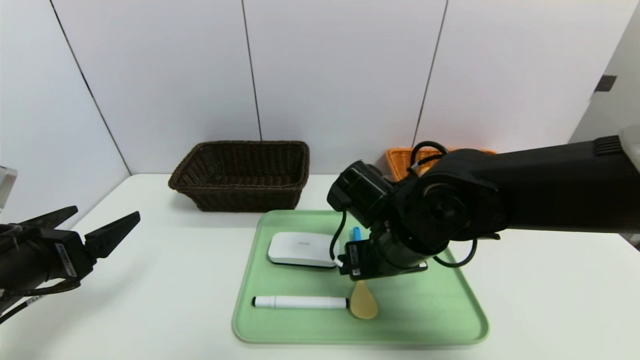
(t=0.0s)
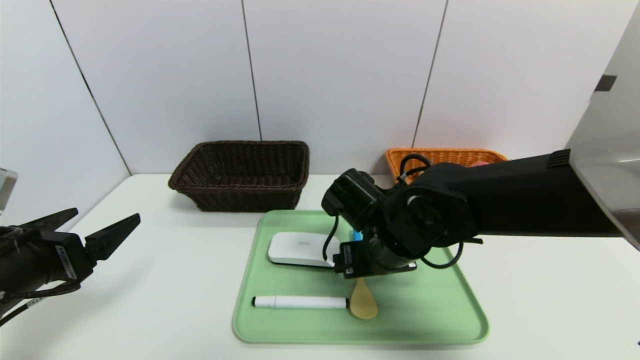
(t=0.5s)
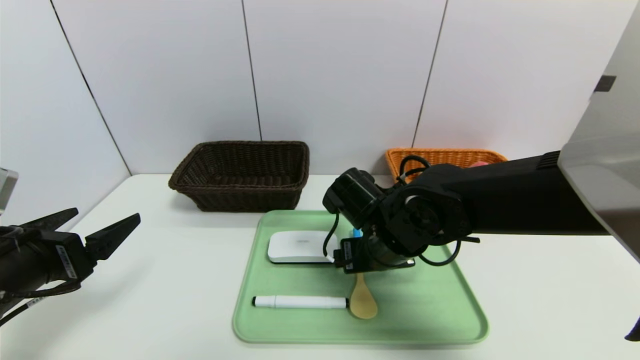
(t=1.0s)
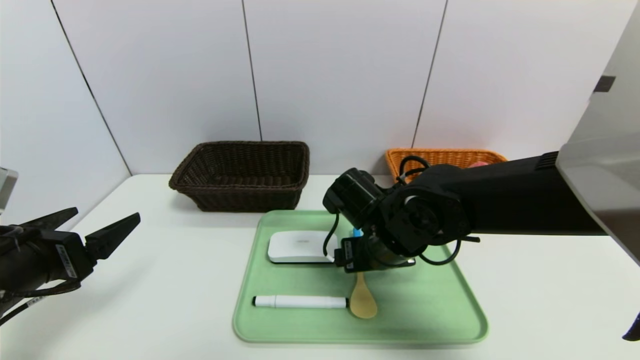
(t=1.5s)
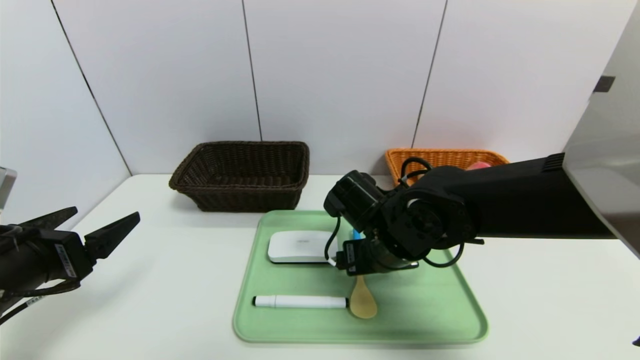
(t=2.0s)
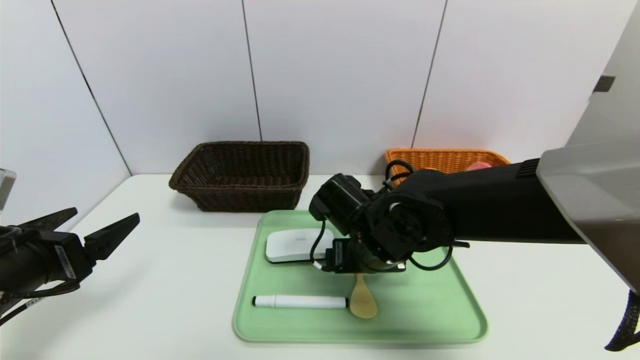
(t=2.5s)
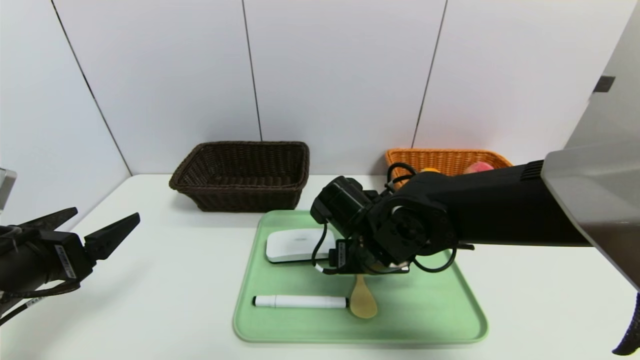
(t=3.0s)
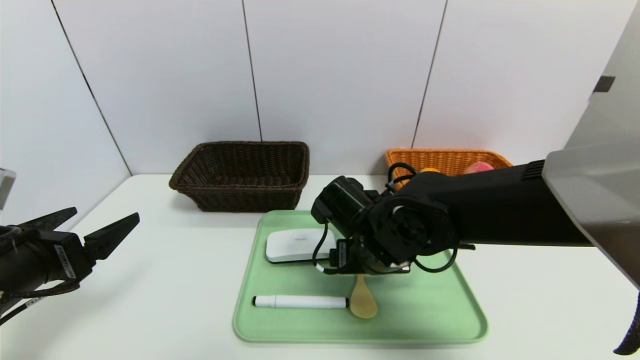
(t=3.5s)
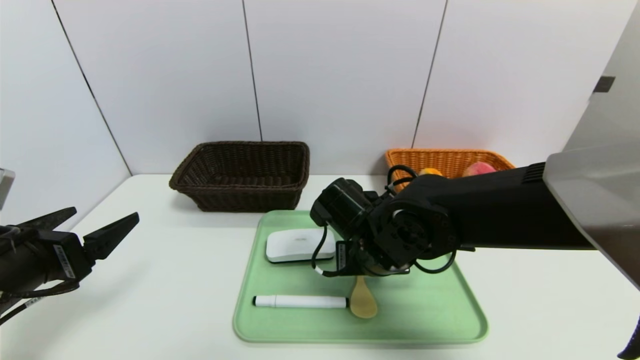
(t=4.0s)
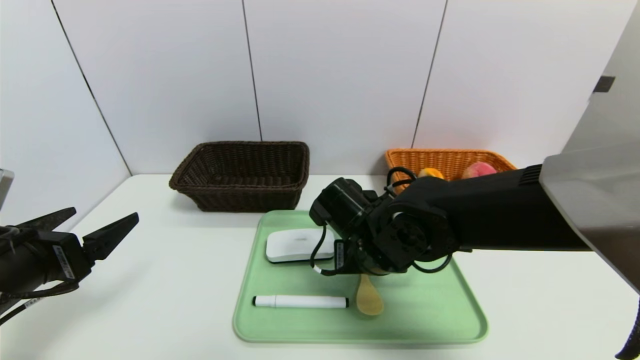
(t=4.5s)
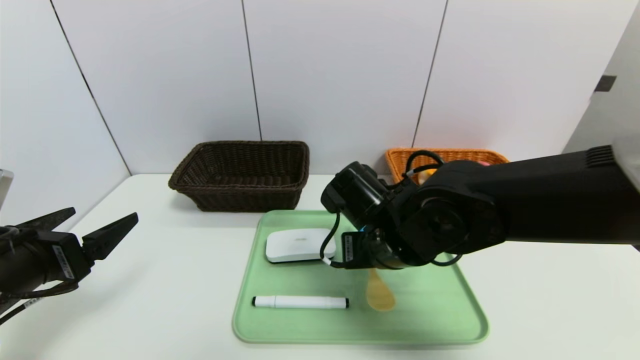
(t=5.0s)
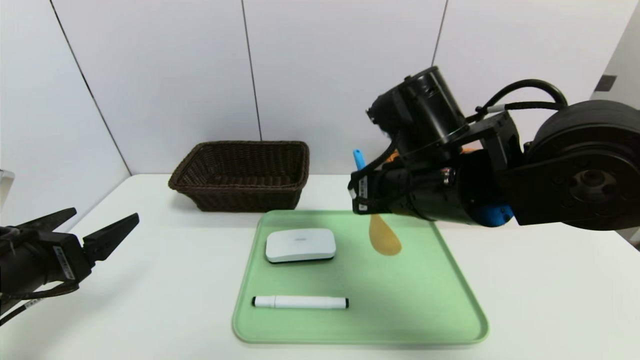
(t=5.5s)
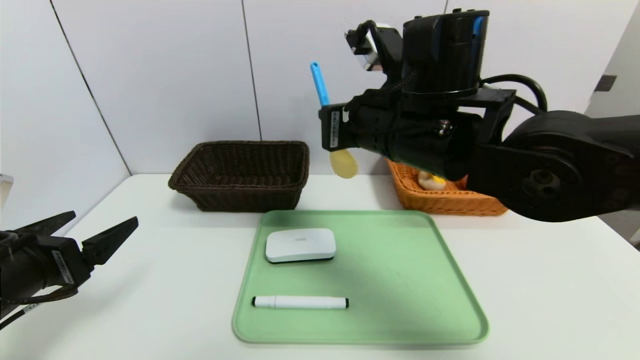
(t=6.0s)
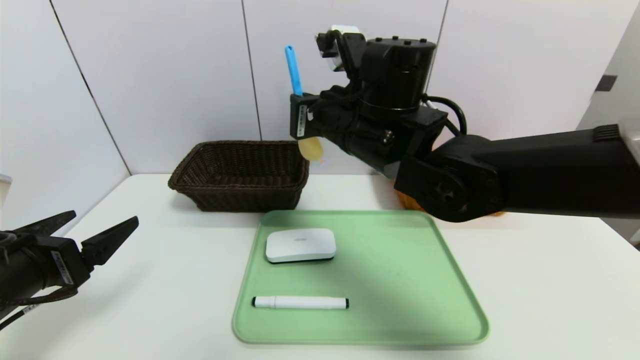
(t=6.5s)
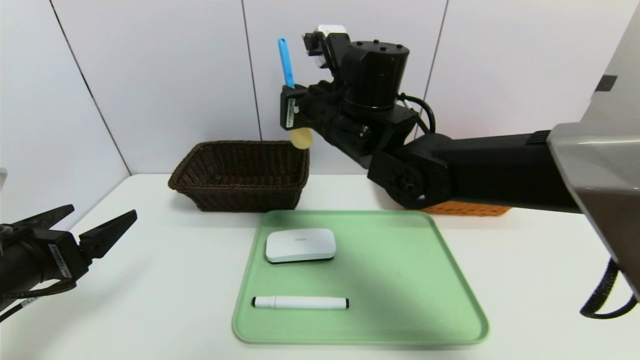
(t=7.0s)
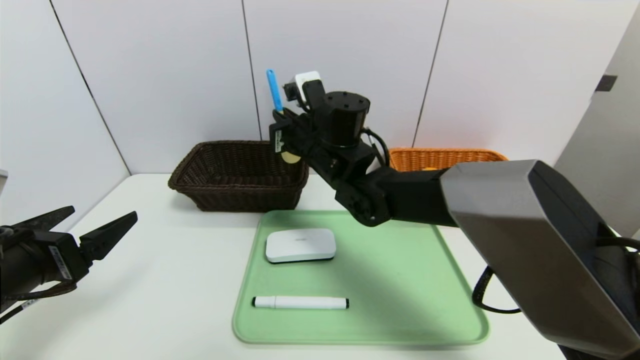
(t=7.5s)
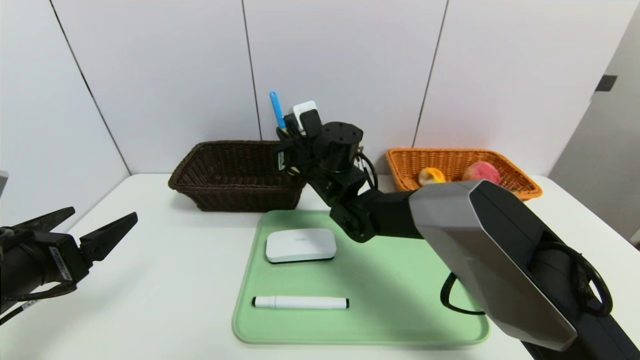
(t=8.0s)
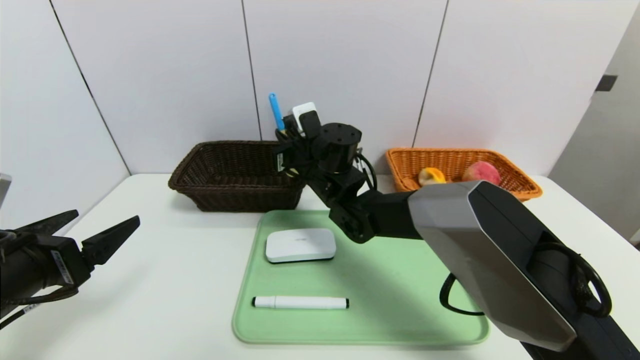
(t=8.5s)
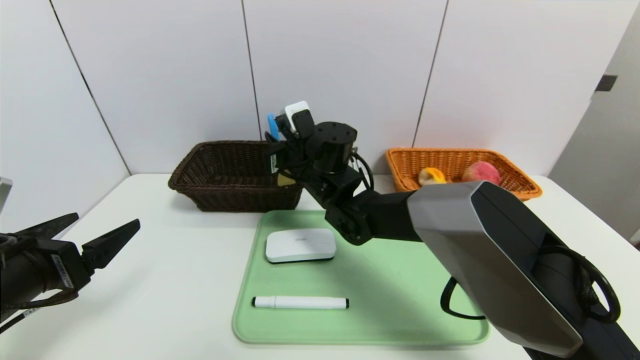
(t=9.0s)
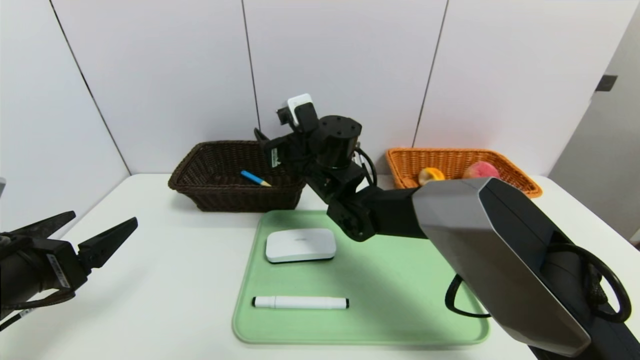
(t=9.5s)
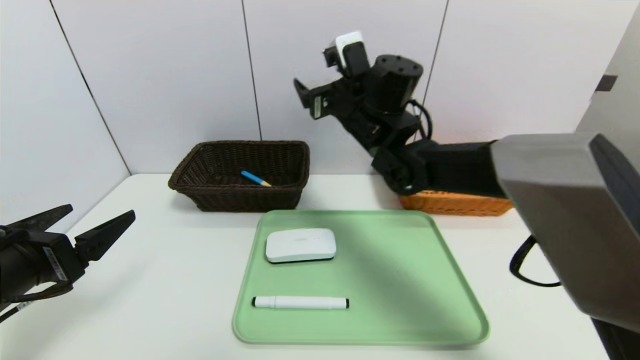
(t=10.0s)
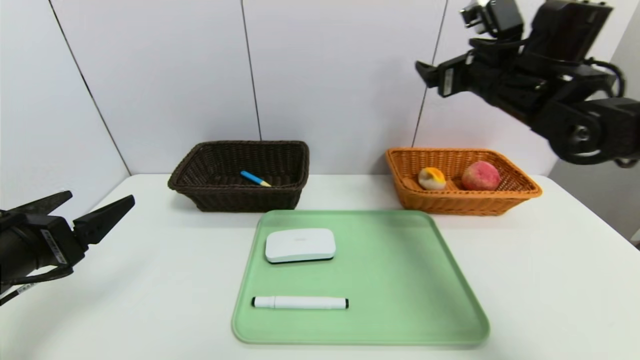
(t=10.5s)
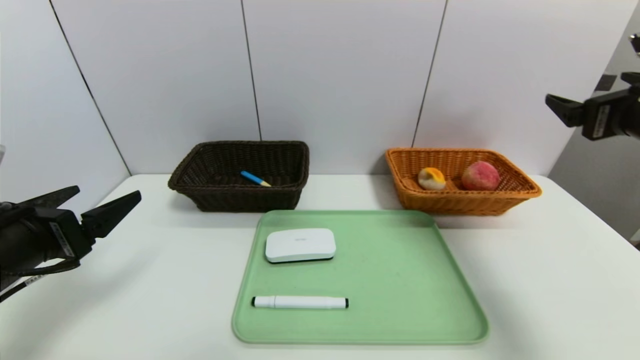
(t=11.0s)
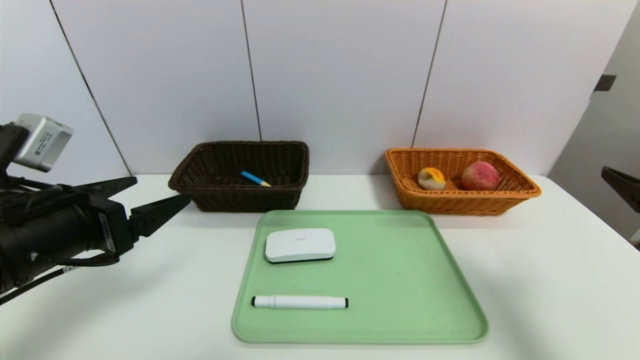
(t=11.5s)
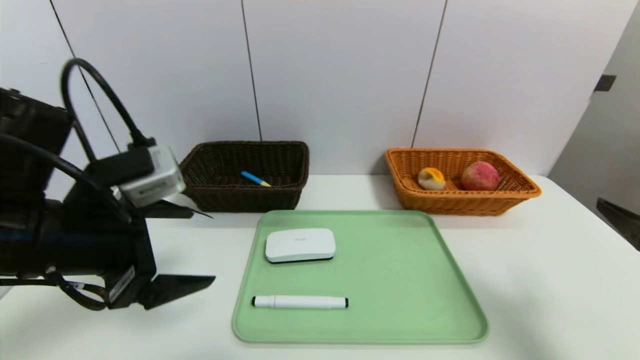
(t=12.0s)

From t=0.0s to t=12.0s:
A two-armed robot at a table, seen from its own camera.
Task of the whole recording: place the food in the right basket with the right gripper, and place the non food items in the left basket with the left gripper.
From t=0.0s to t=2.0s: There are only small adjustments of the grippers.
From t=2.0s to t=4.0s: The right gripper closes up.
From t=4.0s to t=6.0s: The right gripper moves upward, some 15 cm, and closes its fingers.
From t=6.0s to t=8.0s: The right gripper shifts roughly 20 cm forward, downward and to the left.
From t=8.0s to t=10.0s: The right gripper heads upward and to the right, covering some 10 cm, and opens its fingers.
From t=10.0s to t=12.0s: The left gripper heads to the right and upward, covering approximately 10 cm. The right gripper moves backward and to the right, about 40 cm.

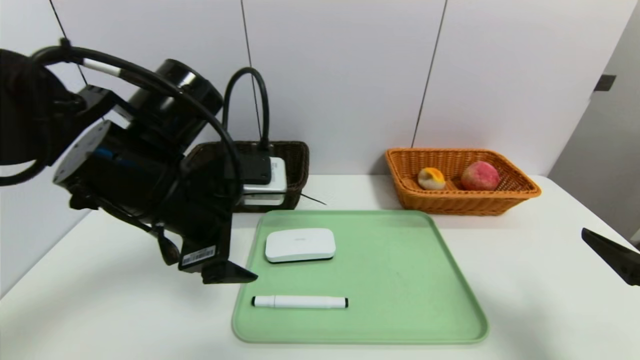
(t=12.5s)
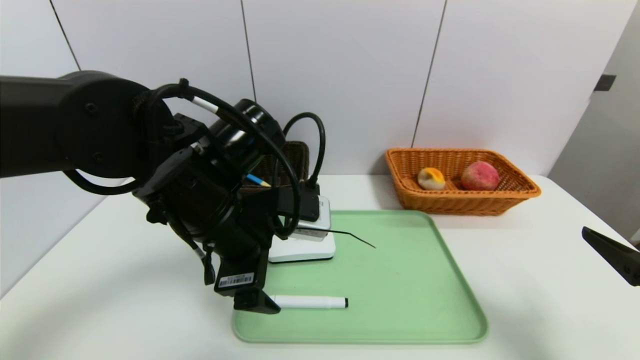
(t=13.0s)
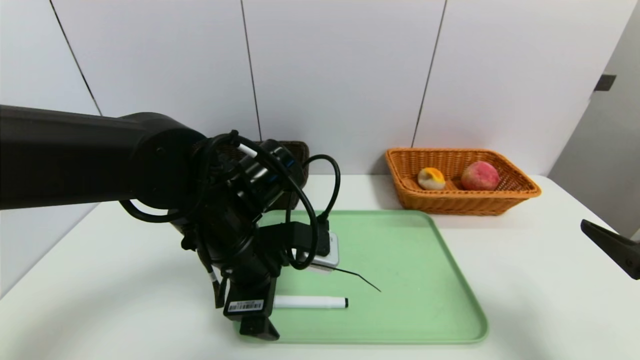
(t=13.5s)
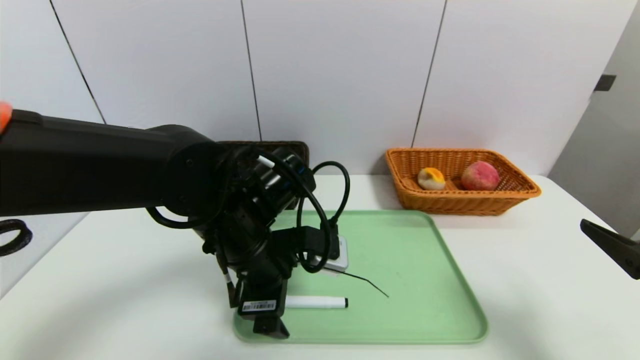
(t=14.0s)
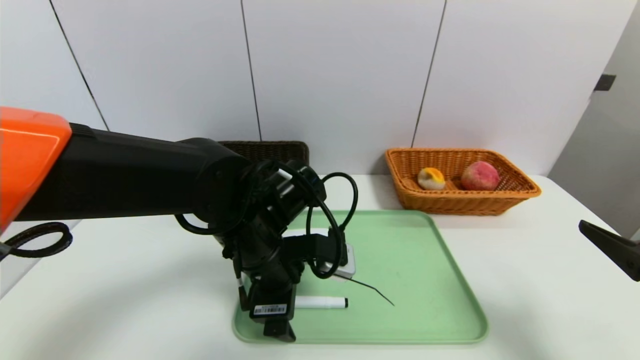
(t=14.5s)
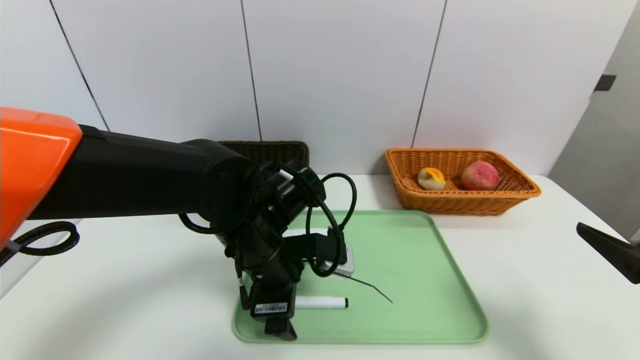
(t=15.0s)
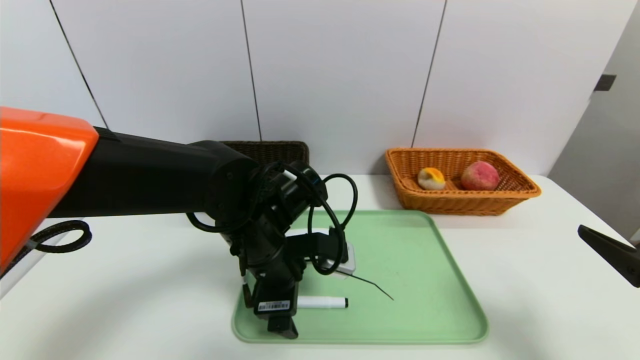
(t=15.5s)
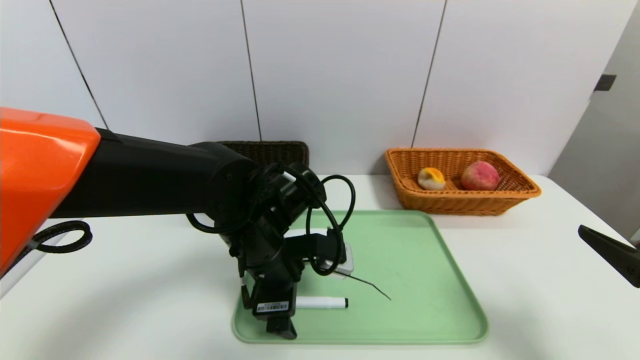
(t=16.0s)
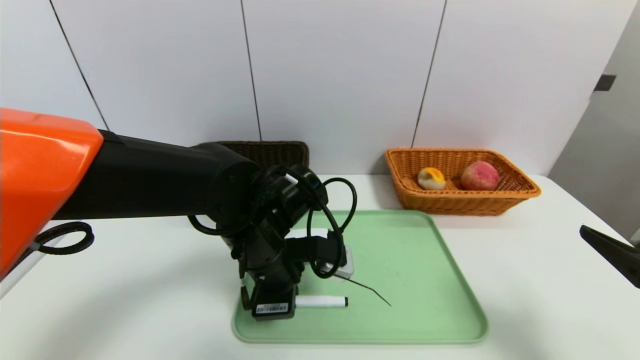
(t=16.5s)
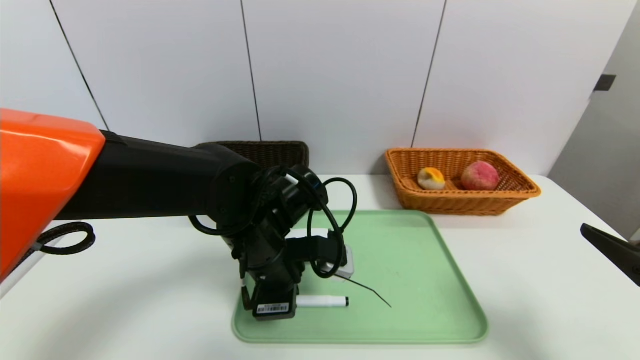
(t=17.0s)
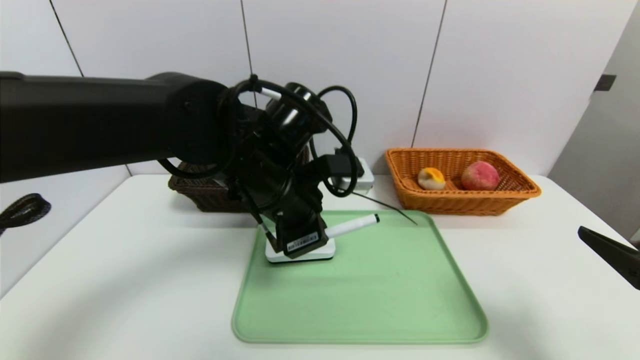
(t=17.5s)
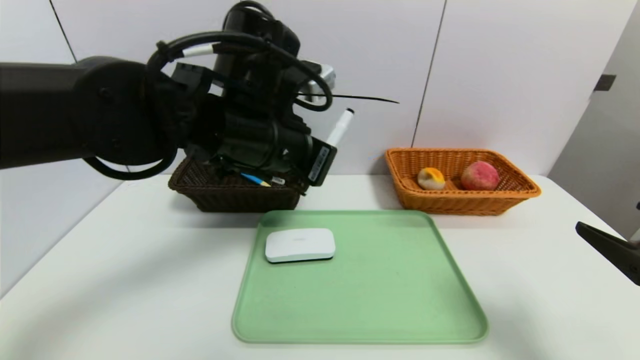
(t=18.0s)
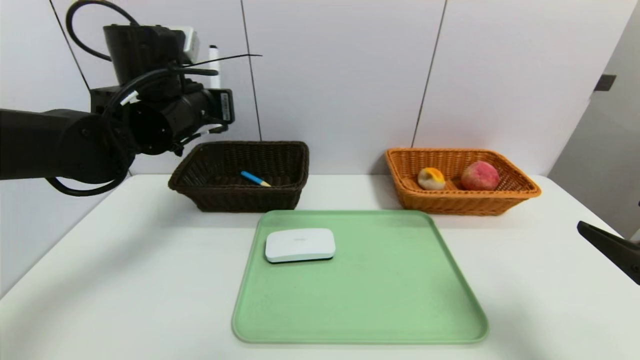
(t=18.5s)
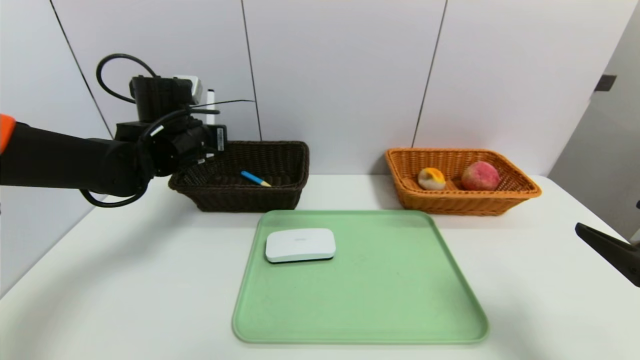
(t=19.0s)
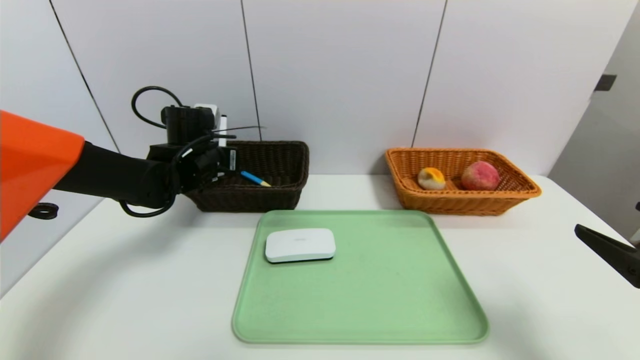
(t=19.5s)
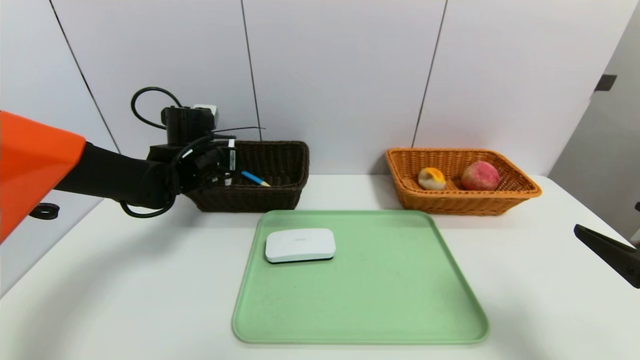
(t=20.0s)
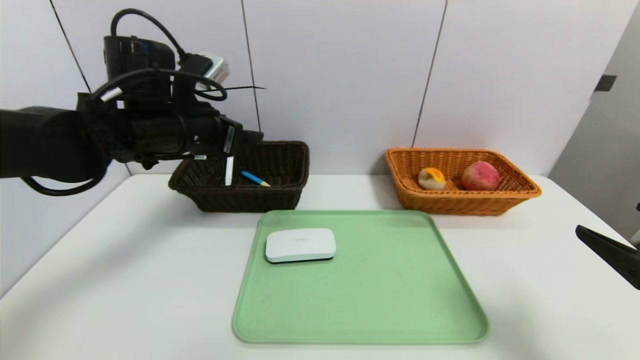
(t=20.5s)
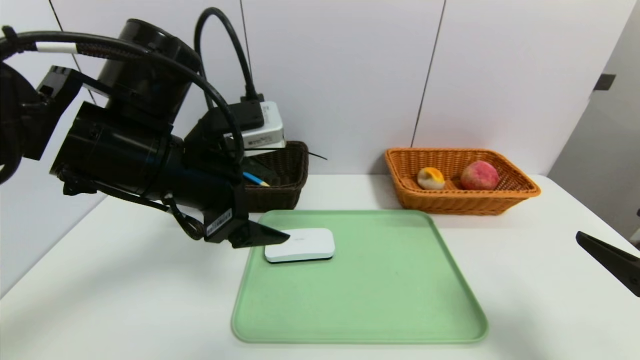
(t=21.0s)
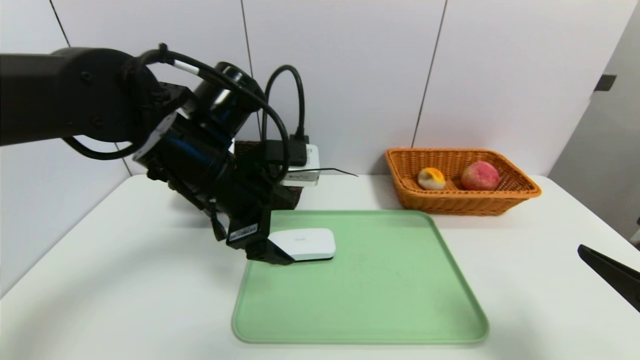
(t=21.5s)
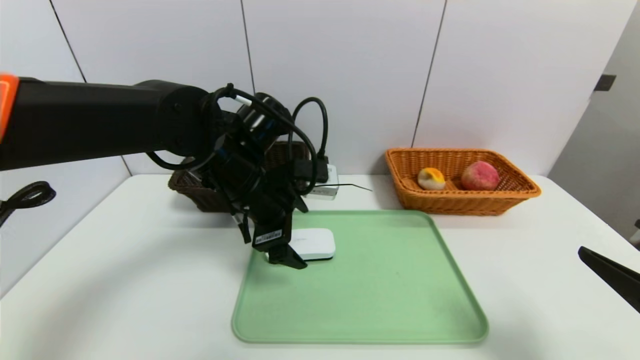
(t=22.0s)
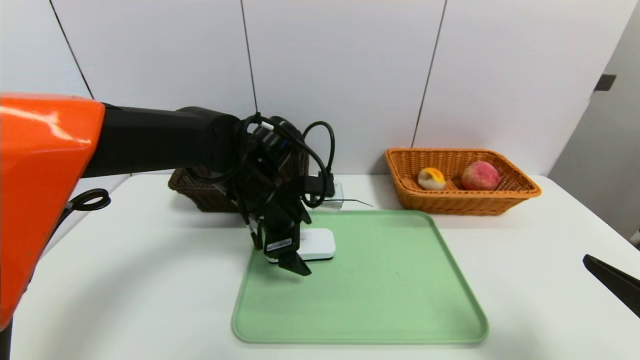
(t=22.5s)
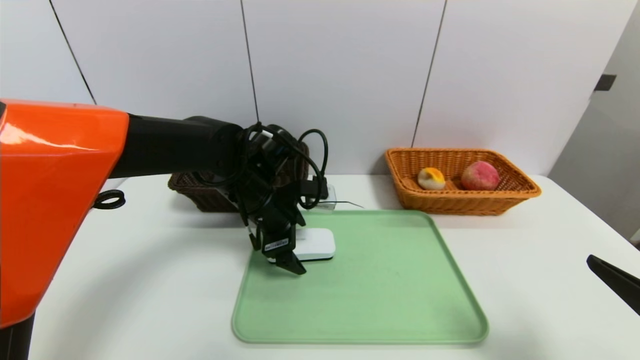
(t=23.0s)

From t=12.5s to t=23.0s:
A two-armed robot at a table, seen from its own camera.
Task of the whole recording: place the food in the right basket with the right gripper, and place the non food items in the left basket with the left gripper.
Step, from t=12.5s to t=20.0s: Grasp the black marker and put it in the left basket.
From t=12.5s to t=14.5s: The left gripper travels downward and to the right by roughly 10 cm.
From t=14.5s to t=16.5s: The left gripper closes up.
From t=16.5s to t=19.0s: The left gripper moves to the left, forward and upward, roughly 20 cm.
From t=19.0s to t=21.0s: The left gripper shifts about 15 cm backward and to the right, and opens its fingers.
From t=21.0s to t=23.0s: The left gripper moves downward, forward and to the right, roughly 15 cm.
